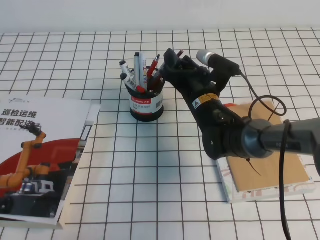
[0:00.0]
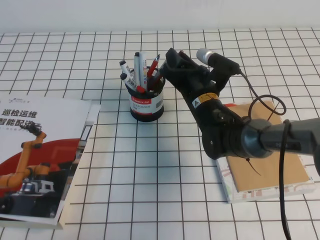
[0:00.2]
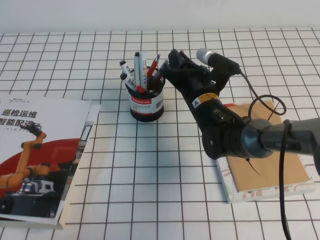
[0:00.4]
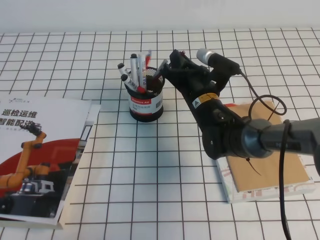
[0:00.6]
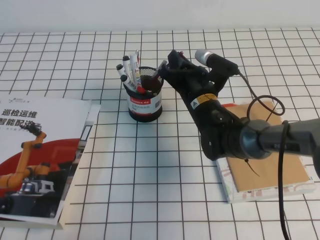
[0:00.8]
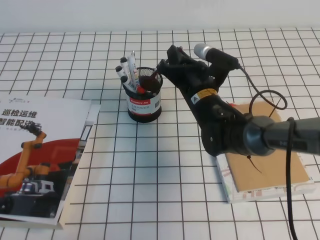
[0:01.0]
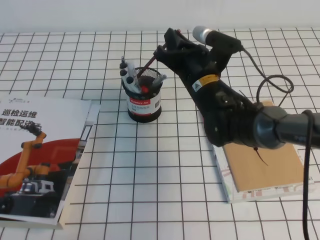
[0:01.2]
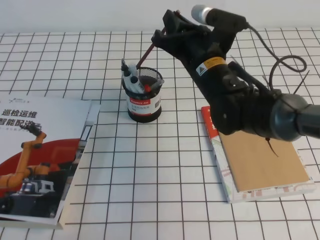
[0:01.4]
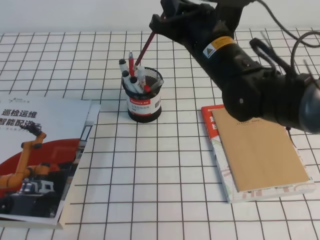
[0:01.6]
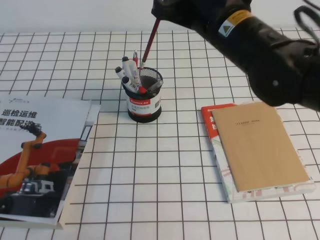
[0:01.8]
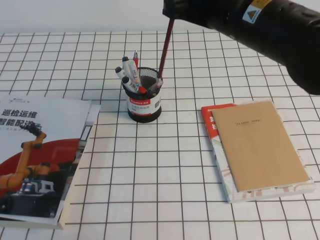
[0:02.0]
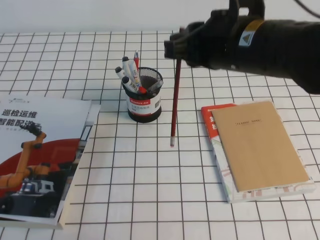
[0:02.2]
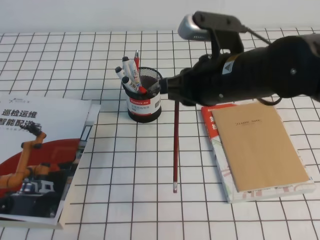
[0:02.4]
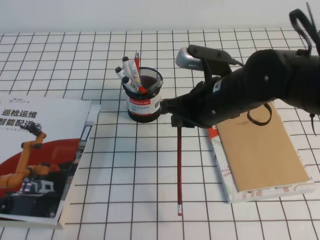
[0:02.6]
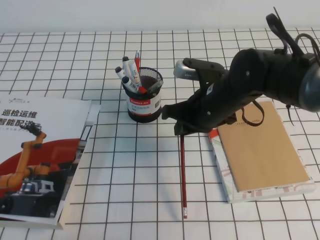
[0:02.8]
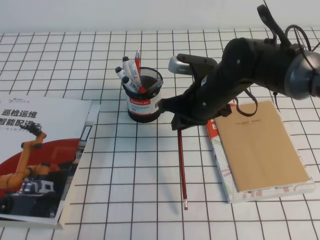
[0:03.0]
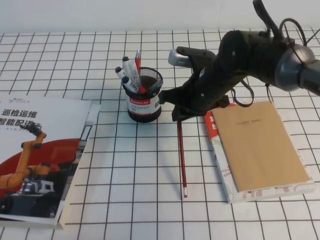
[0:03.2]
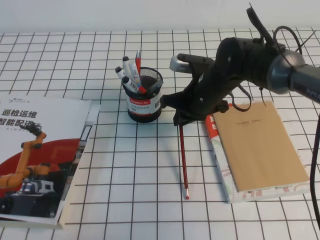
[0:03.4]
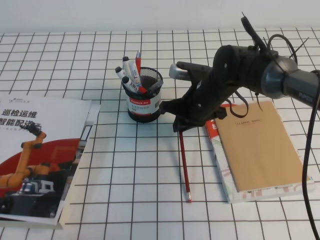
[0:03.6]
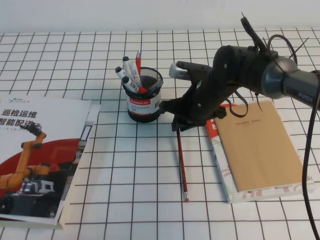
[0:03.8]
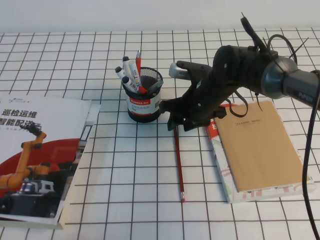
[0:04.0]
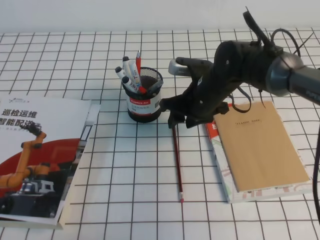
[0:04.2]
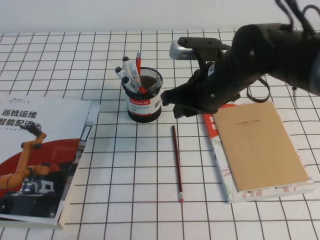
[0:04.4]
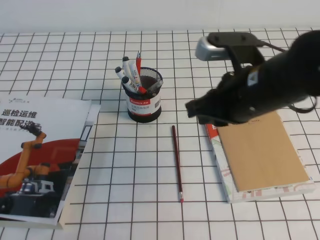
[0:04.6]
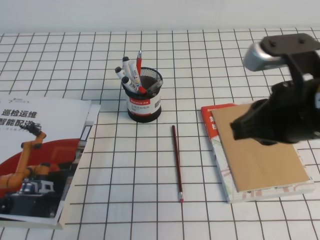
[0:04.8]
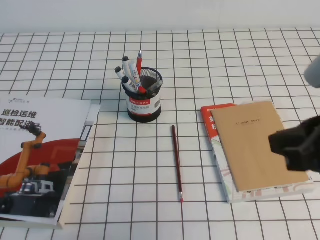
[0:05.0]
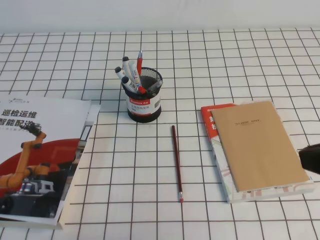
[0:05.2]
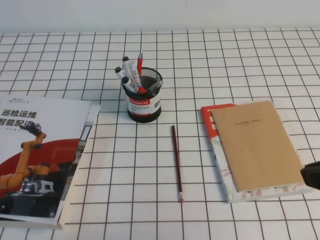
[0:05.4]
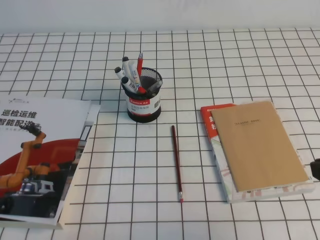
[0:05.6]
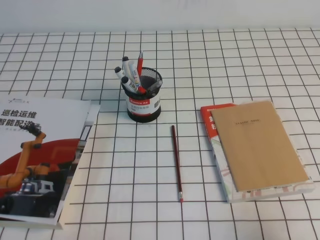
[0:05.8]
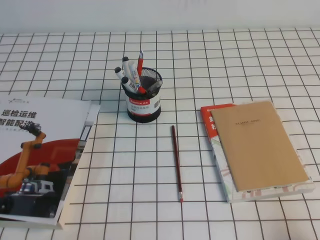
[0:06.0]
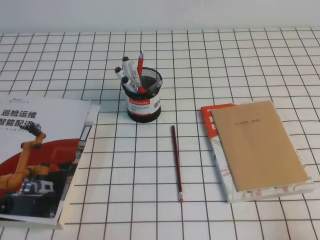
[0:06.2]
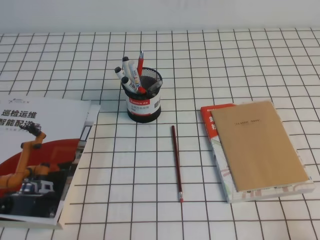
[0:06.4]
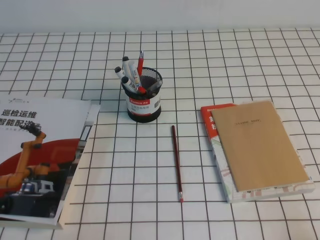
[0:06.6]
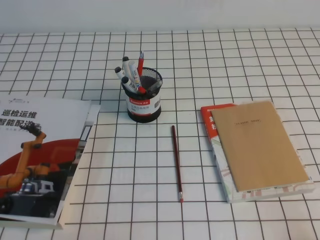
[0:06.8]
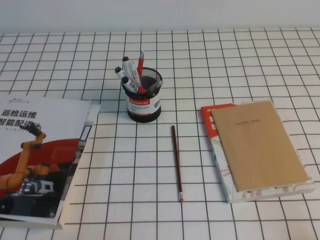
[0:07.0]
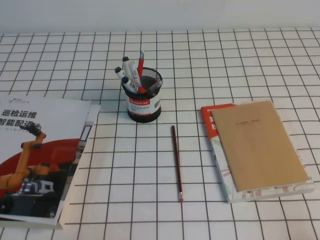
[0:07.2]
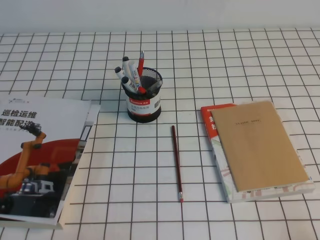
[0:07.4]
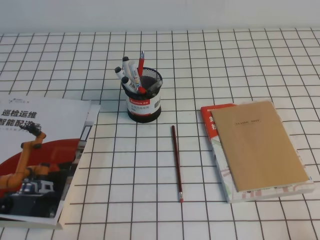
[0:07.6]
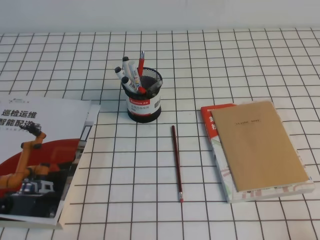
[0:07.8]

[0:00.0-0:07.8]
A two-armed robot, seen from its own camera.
Step, 0:00.0 to 0:07.8: Pick up the pen from the pen holder.
0:00.0 to 0:01.6: The right gripper moves upward, about 15 cm, and closes its fingers.
0:01.6 to 0:03.2: The right gripper travels downward by about 10 cm.
0:03.2 to 0:04.6: The right gripper travels backward and upward by some 15 cm, and opens, then closes once more.
0:04.6 to 0:06.2: The right gripper goes about 30 cm backward, to the right and downward.

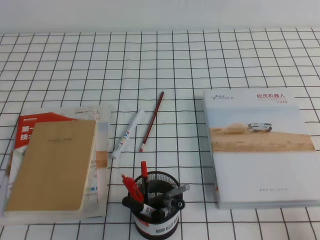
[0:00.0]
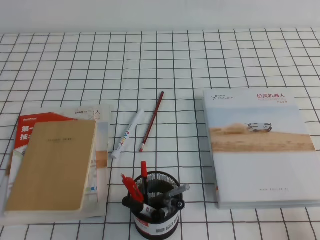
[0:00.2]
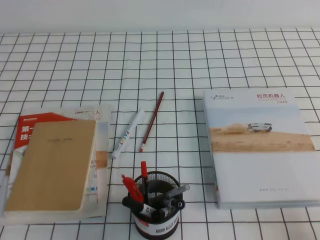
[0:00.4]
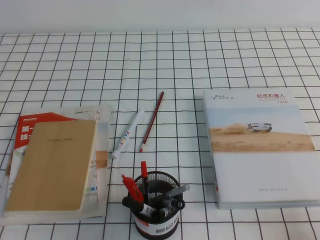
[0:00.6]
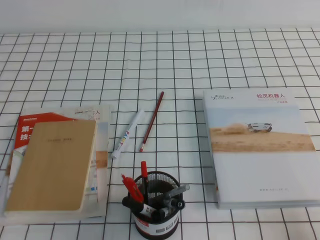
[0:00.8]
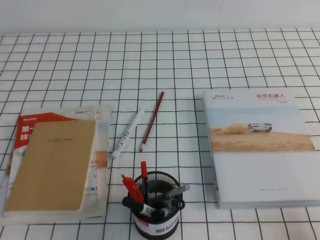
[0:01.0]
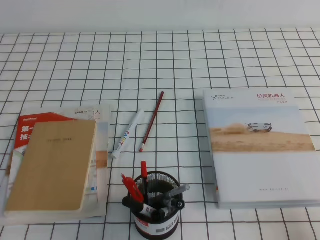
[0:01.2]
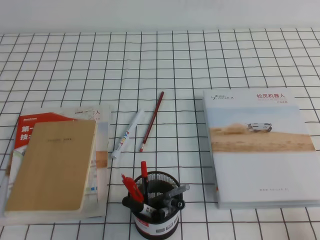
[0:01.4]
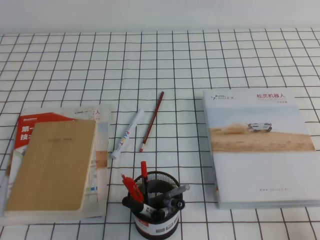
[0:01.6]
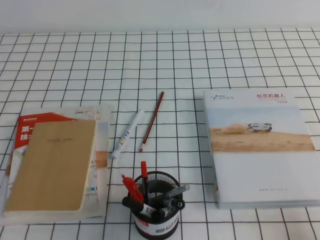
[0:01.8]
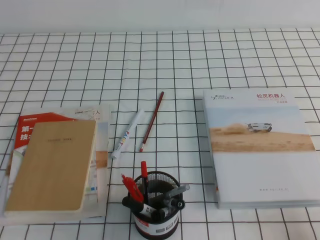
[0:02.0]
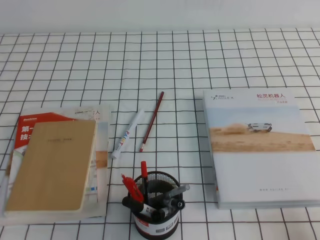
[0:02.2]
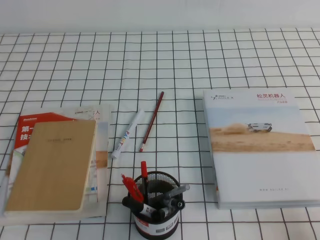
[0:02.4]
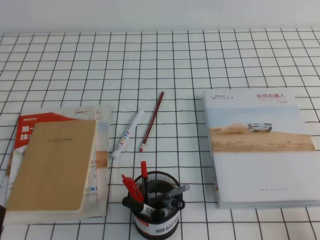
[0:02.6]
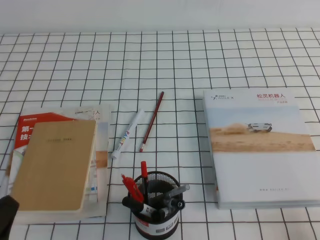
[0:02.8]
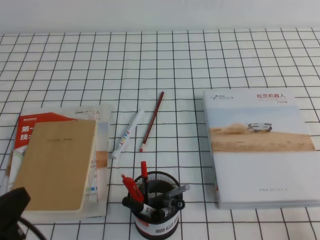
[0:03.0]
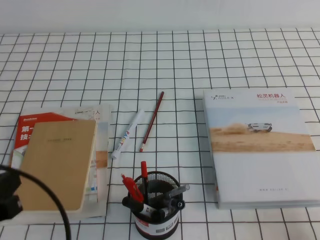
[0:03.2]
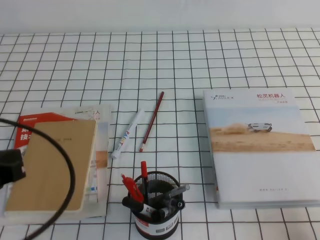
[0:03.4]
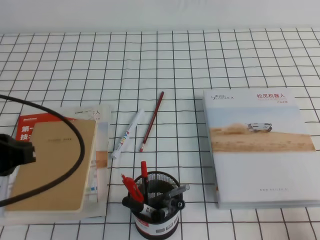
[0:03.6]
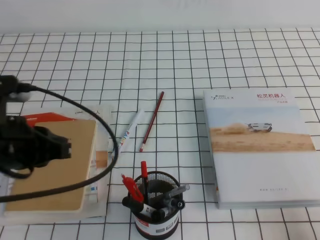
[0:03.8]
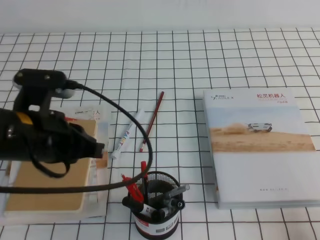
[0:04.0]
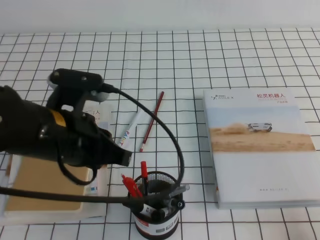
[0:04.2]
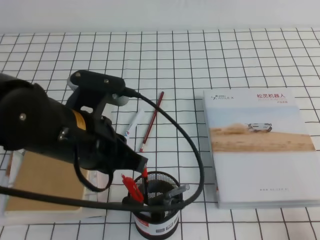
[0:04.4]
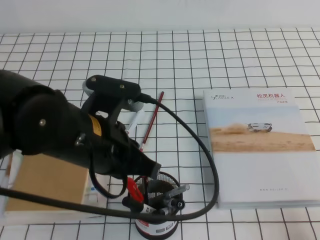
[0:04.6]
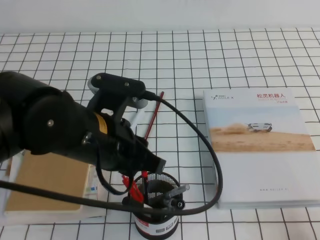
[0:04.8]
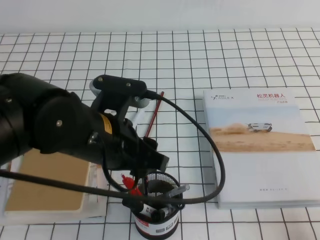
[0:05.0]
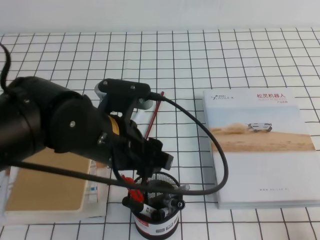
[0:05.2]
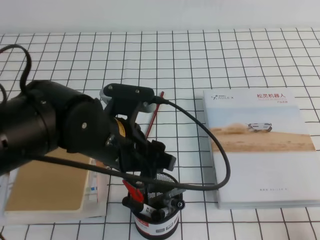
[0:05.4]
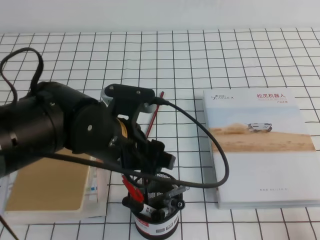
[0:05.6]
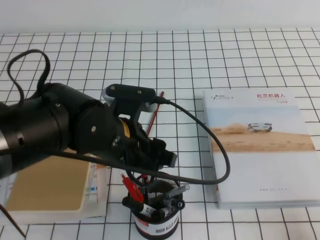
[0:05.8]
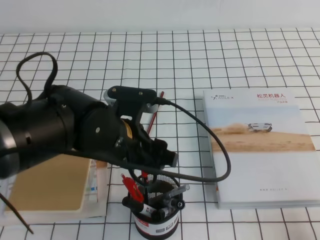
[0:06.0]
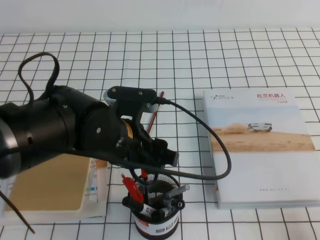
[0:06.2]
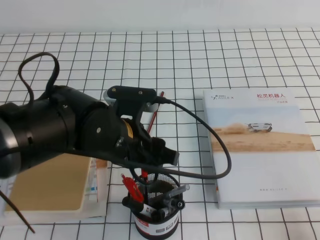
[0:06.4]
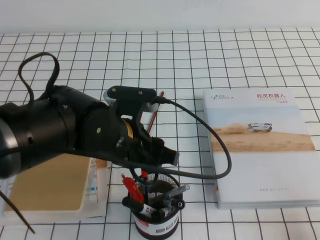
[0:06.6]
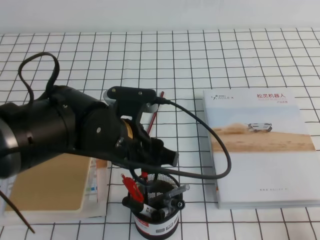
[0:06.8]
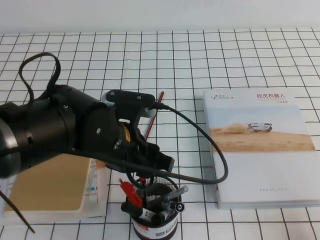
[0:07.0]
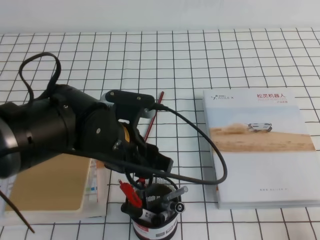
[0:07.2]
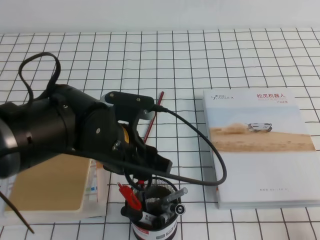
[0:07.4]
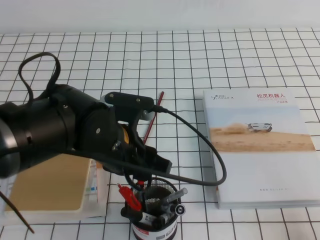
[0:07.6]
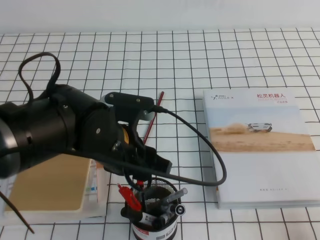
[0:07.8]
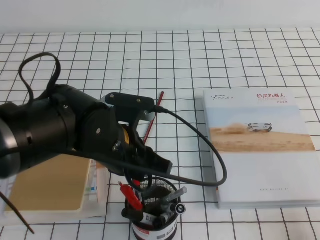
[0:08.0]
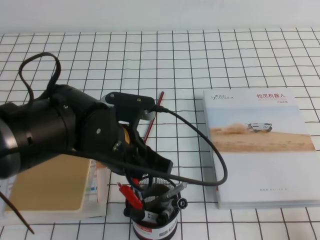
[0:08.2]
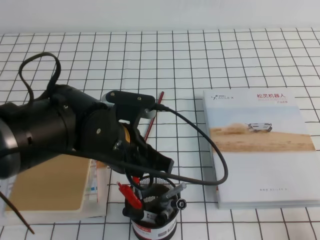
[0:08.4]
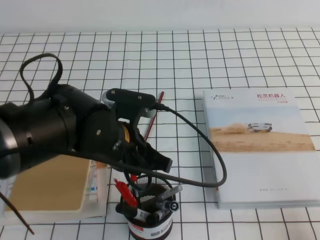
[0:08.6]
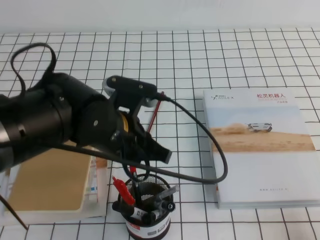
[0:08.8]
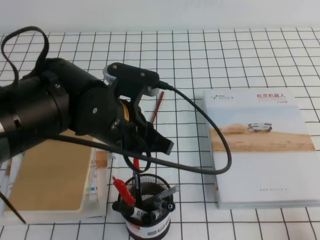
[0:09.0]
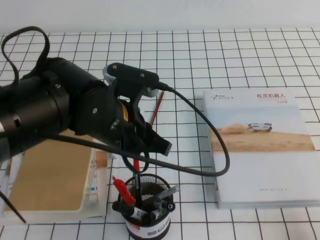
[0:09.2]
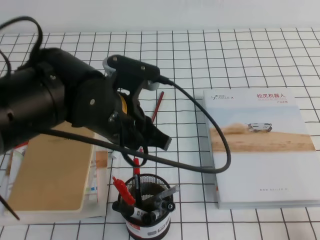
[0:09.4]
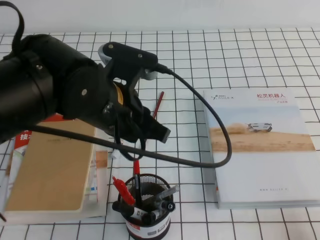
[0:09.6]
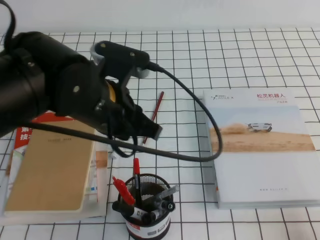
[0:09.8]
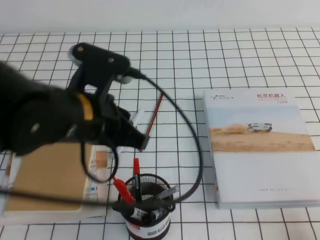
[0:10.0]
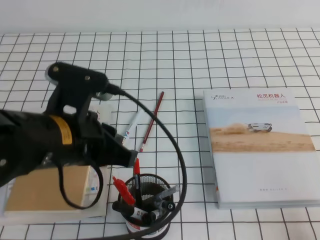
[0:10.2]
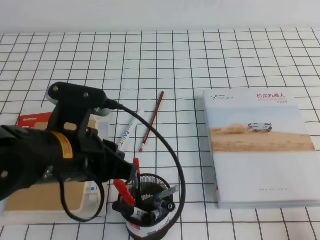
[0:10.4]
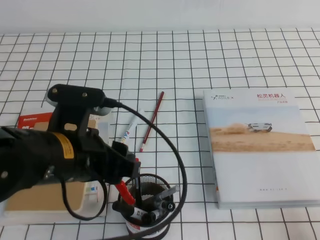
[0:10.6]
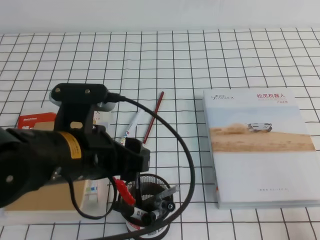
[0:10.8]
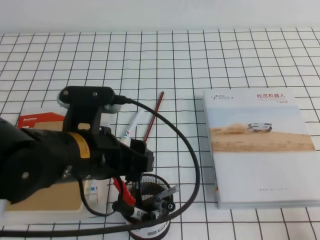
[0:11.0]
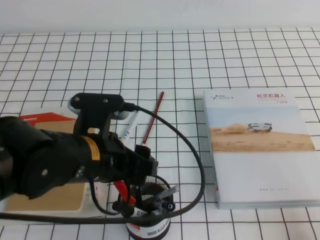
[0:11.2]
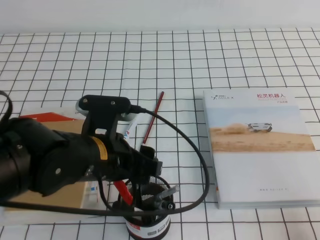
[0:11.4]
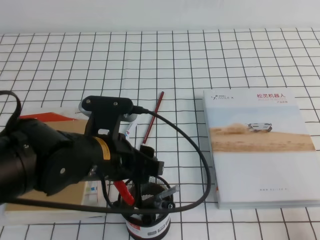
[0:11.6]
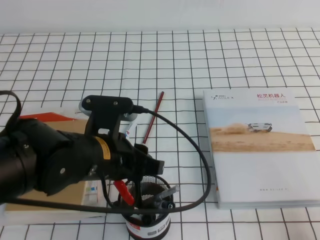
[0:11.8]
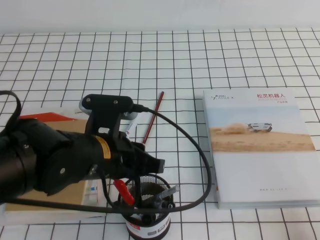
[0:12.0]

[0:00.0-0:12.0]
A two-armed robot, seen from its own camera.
0:00.0 to 0:01.6: Both grippers stay about where they are.
0:01.6 to 0:03.0: The left gripper goes about 5 cm upward.
0:03.0 to 0:04.4: The left gripper travels forward, to the right and upward by about 20 cm.
0:04.4 to 0:06.0: The left gripper heads downward, covering some 5 cm, and opens up.
0:06.0 to 0:07.6: The grippers stay close to where they were, moving slightly.
0:07.6 to 0:09.0: The left gripper closes its fingers.
0:09.0 to 0:10.4: The left gripper heads to the left and backward, covering about 10 cm.
0:10.4 to 0:12.0: The left gripper ends up roughly 5 cm from where it was, and opens, then closes once more.

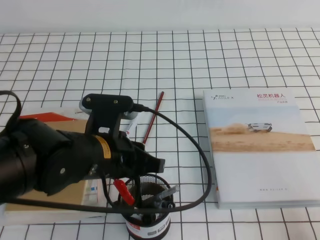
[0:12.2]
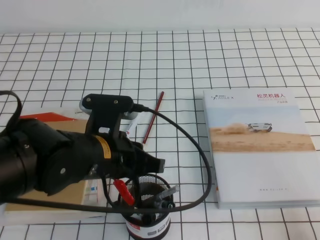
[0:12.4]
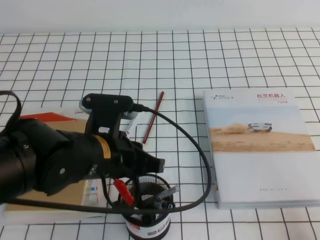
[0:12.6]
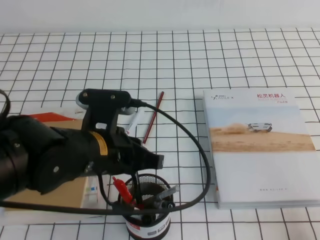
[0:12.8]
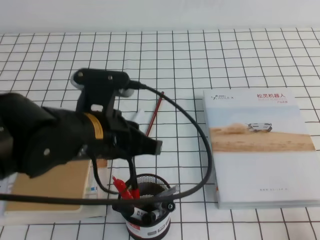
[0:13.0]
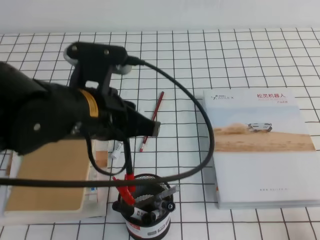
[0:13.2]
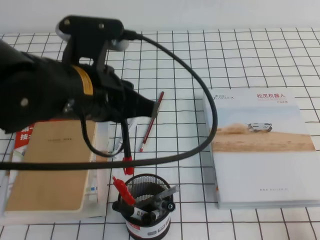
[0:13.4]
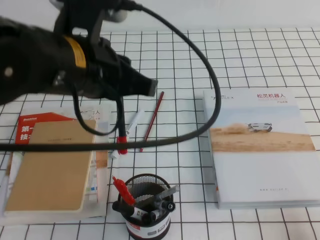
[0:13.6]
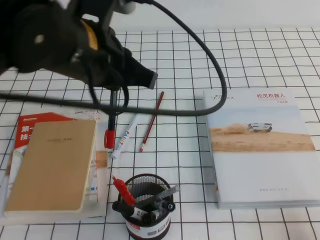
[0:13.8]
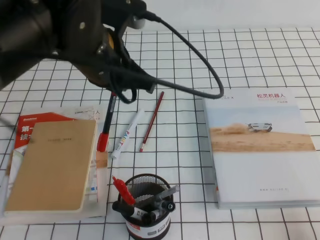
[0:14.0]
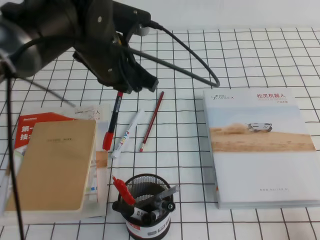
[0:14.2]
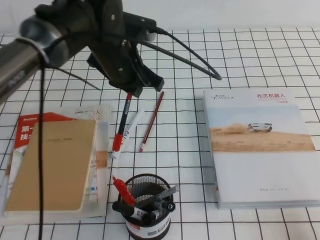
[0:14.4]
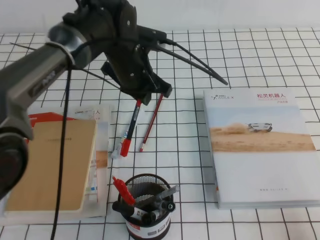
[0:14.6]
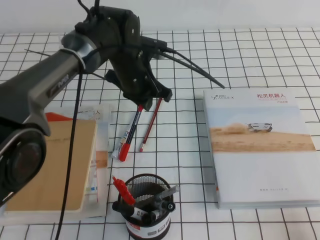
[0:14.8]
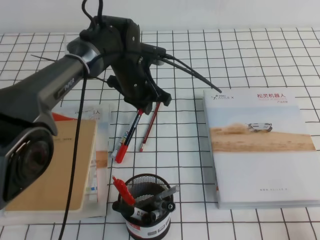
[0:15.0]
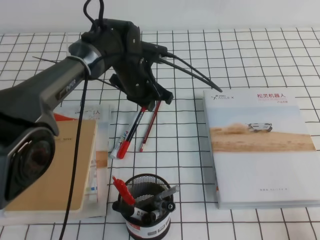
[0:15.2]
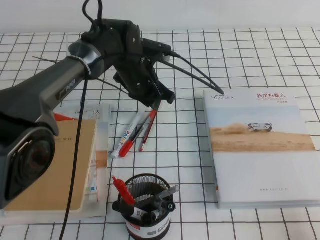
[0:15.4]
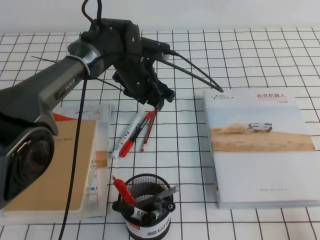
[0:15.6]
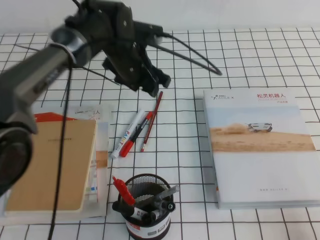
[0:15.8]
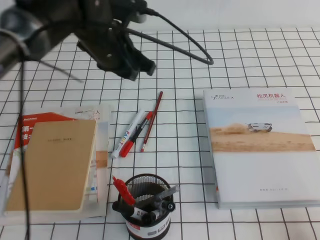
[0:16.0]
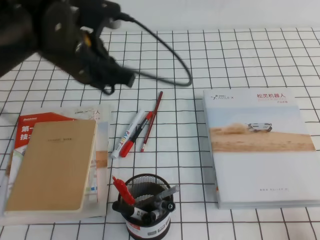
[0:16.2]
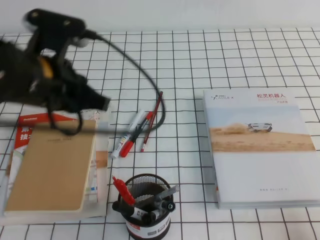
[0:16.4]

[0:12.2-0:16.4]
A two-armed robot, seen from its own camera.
0:12.2 to 0:13.6: The left gripper is displaced upward by some 15 cm.
0:13.6 to 0:15.0: The left gripper heads forward and downward, covering approximately 25 cm.
0:15.0 to 0:16.4: The left gripper is displaced backward, upward and to the left by about 20 cm, and opens, then closes once more.
